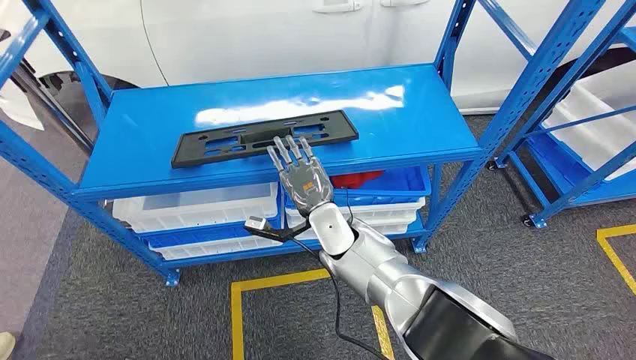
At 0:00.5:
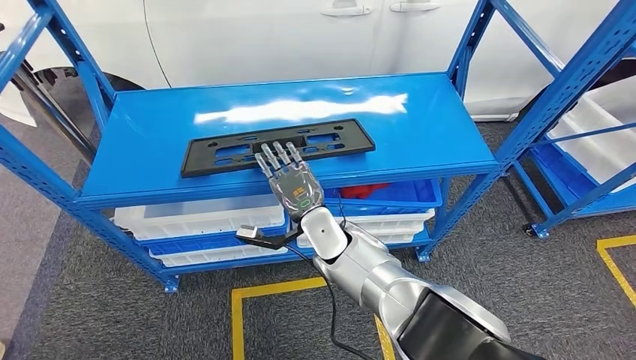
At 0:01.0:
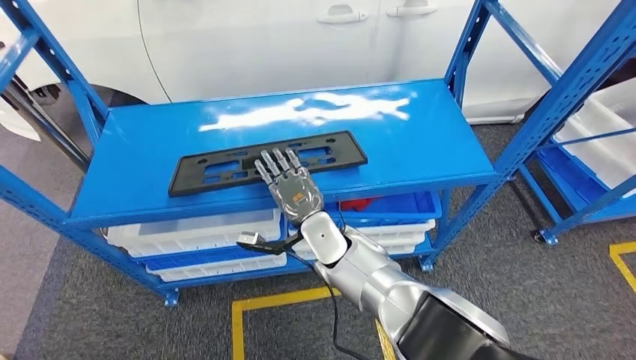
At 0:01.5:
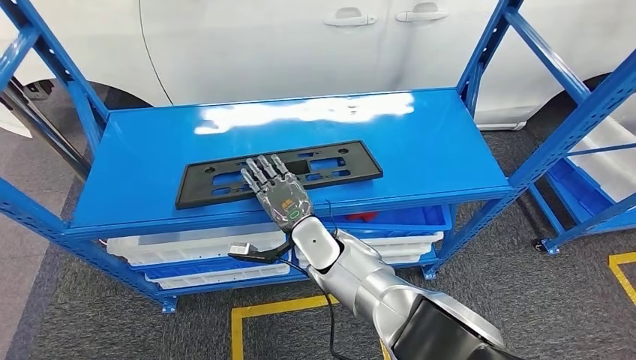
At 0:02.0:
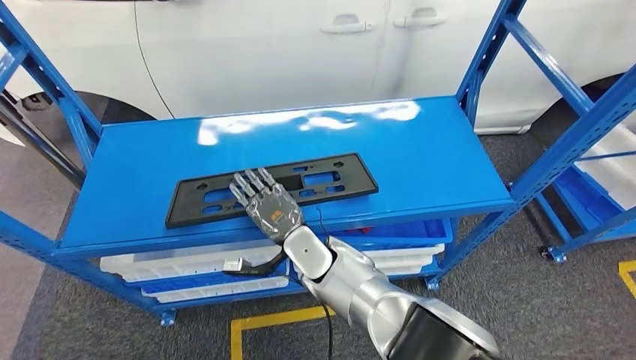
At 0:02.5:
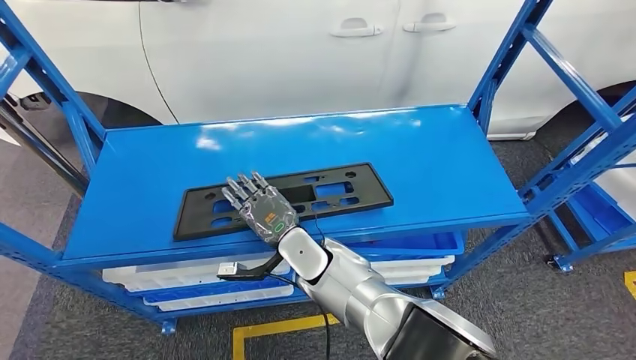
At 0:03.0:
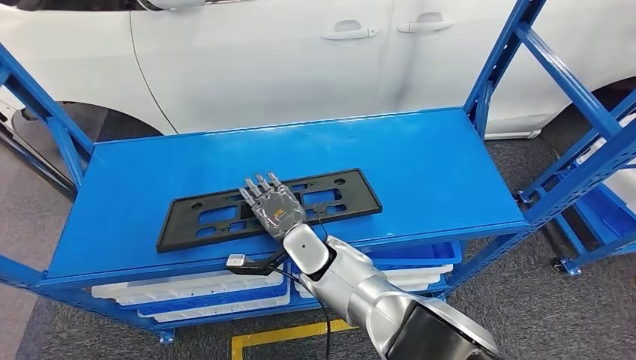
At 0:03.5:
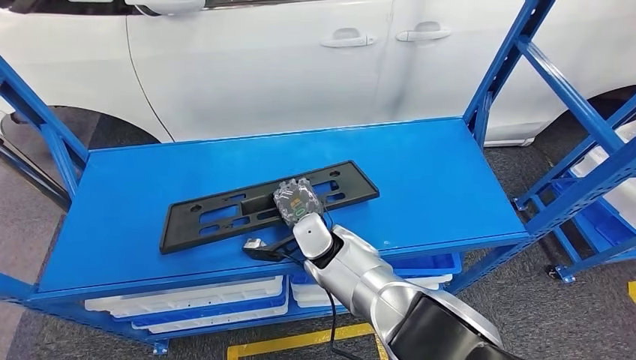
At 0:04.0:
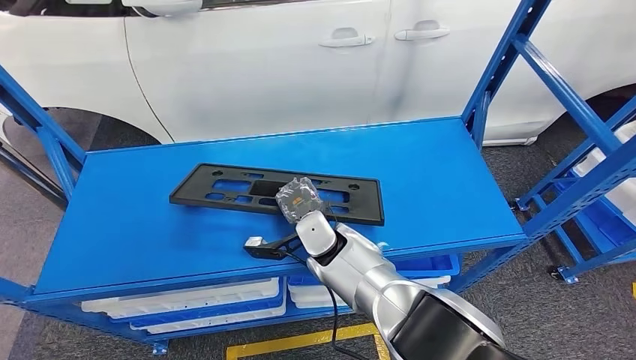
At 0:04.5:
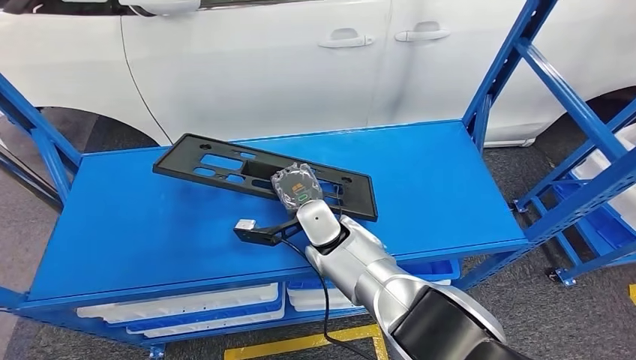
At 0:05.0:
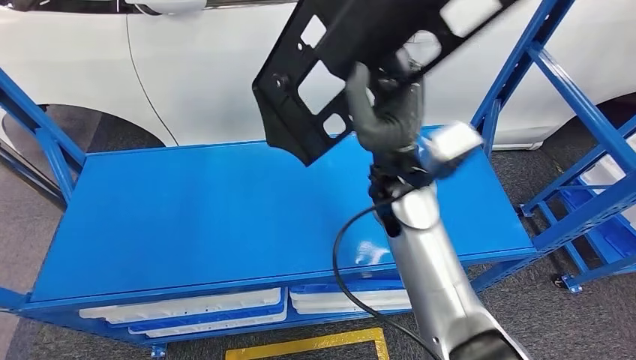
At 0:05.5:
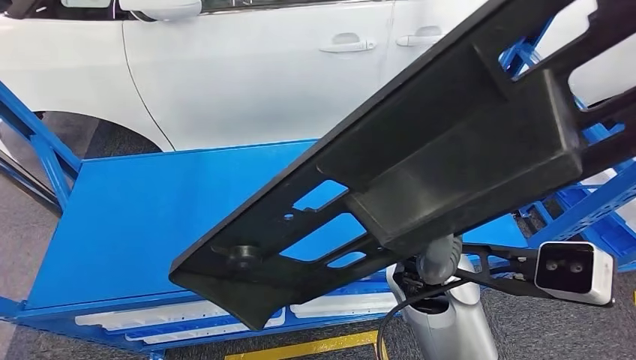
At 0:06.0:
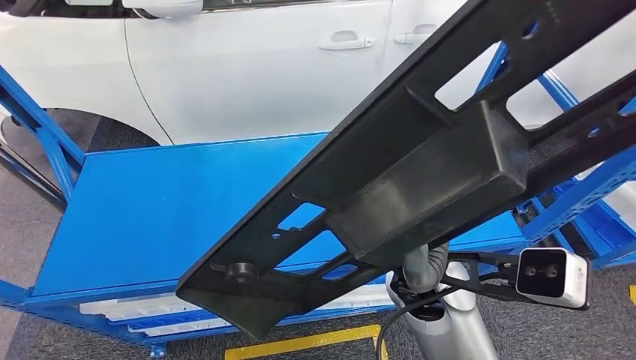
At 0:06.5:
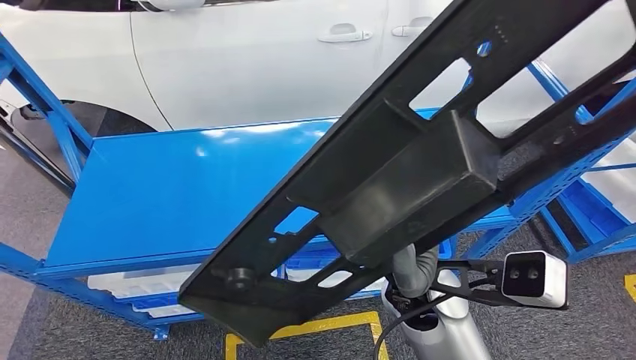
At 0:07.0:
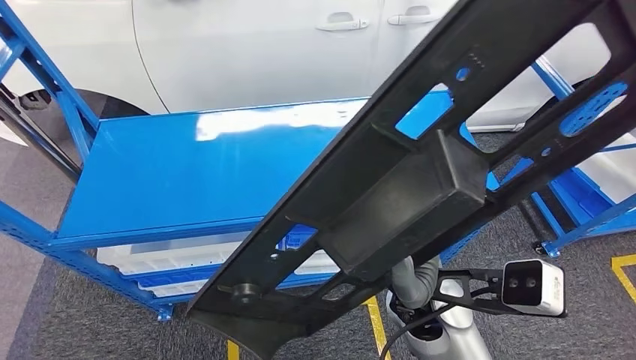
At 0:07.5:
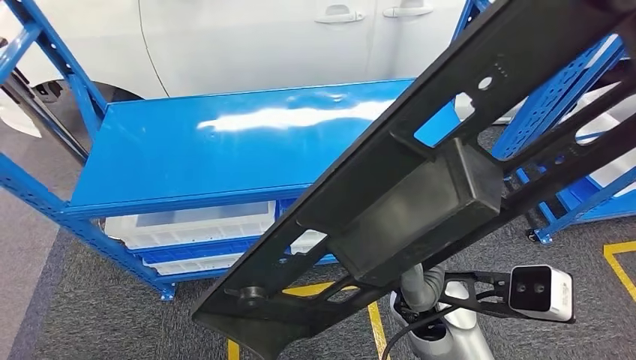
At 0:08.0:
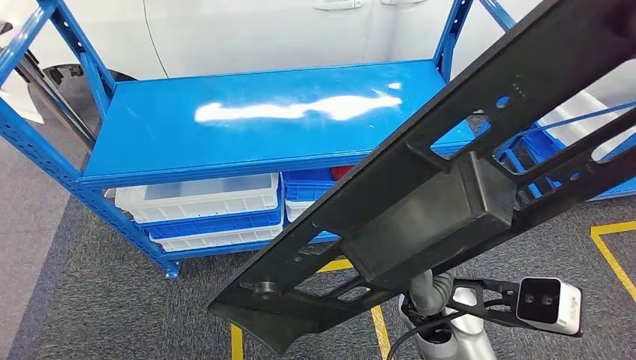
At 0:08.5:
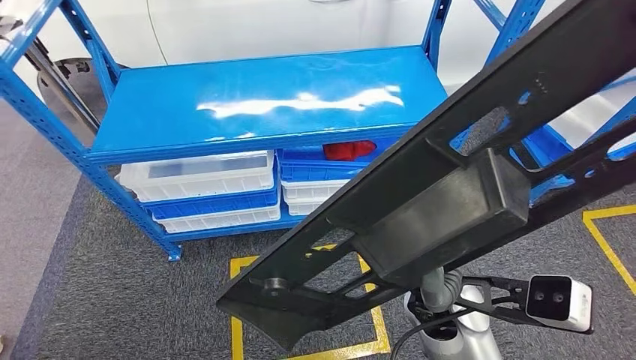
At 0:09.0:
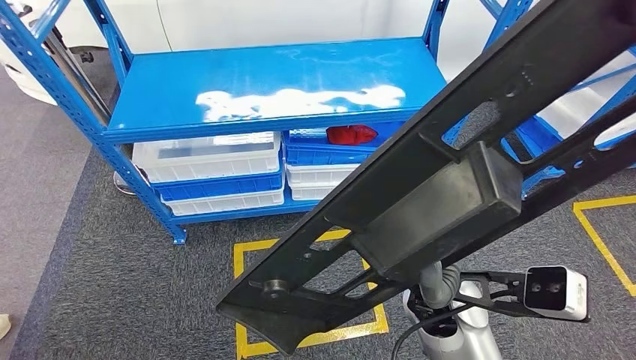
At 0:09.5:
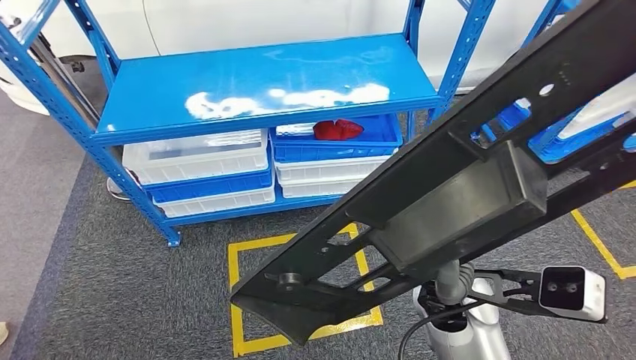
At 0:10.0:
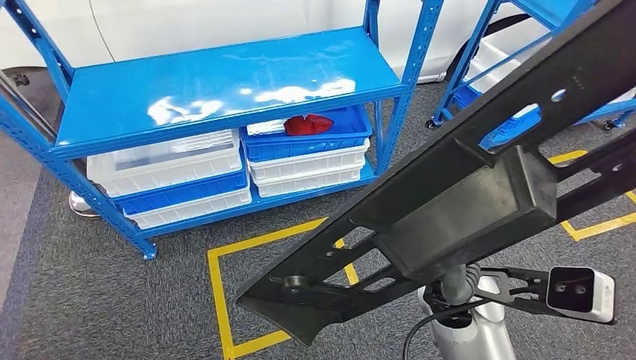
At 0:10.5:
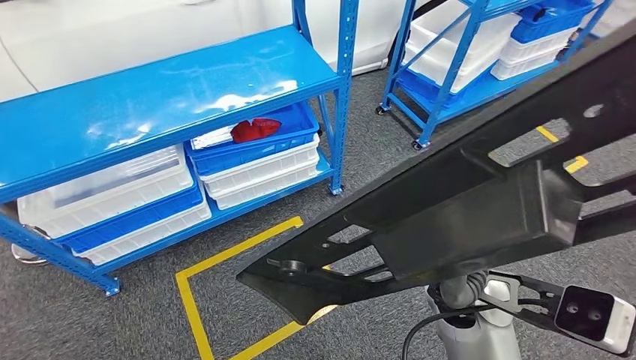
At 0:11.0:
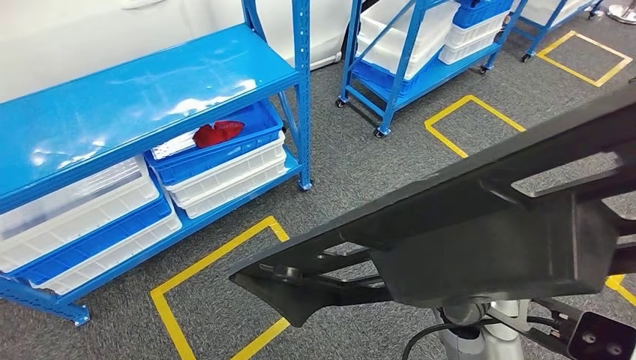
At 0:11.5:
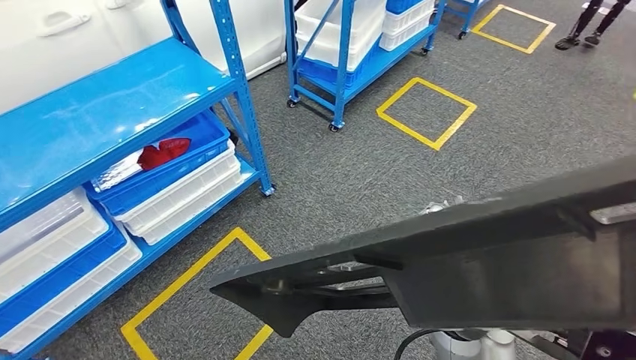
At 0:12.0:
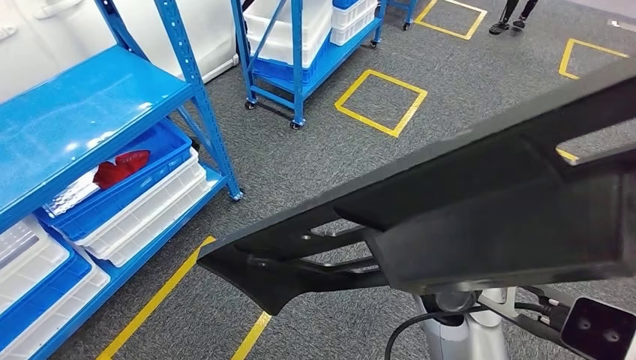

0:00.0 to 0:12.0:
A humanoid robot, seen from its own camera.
Step, 0:00.0 to 0:05.5: Pick up the large material from the shelf.

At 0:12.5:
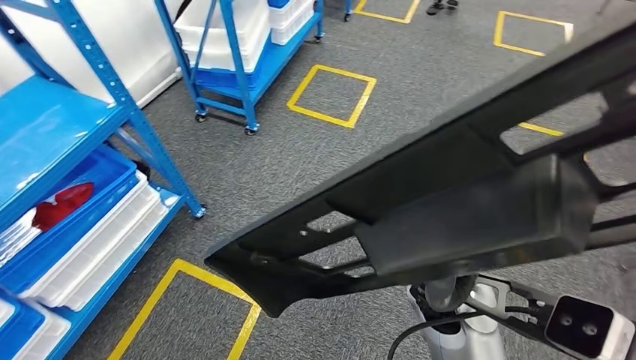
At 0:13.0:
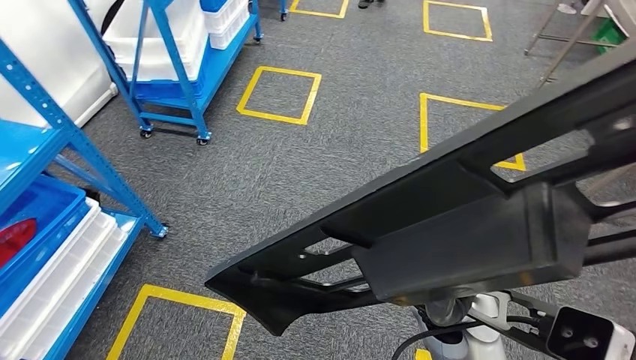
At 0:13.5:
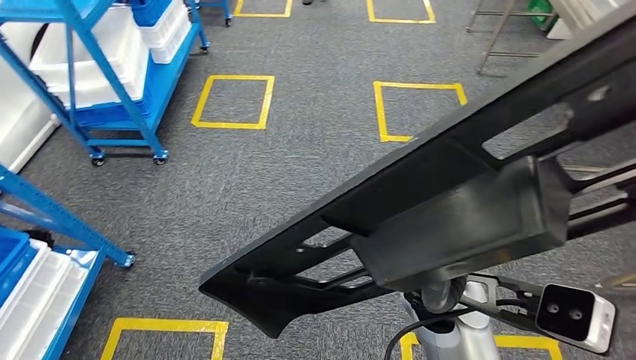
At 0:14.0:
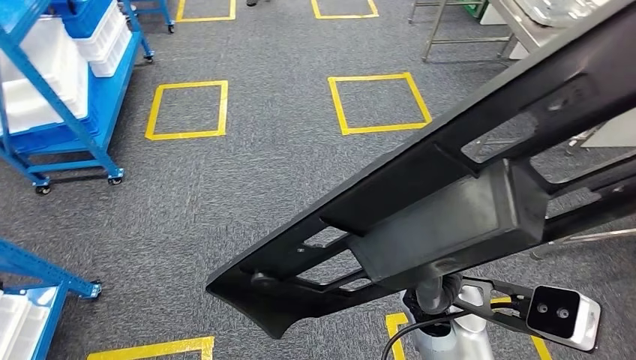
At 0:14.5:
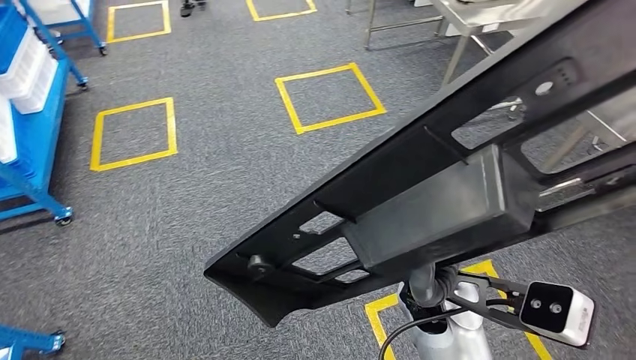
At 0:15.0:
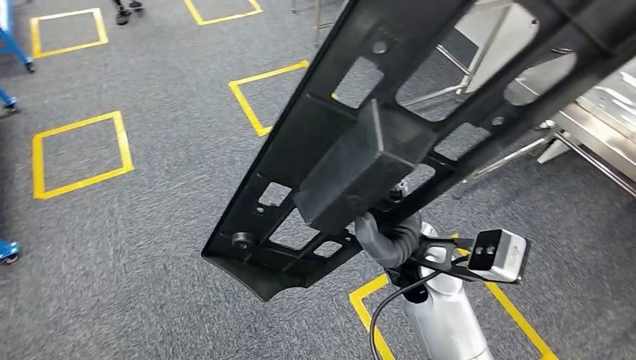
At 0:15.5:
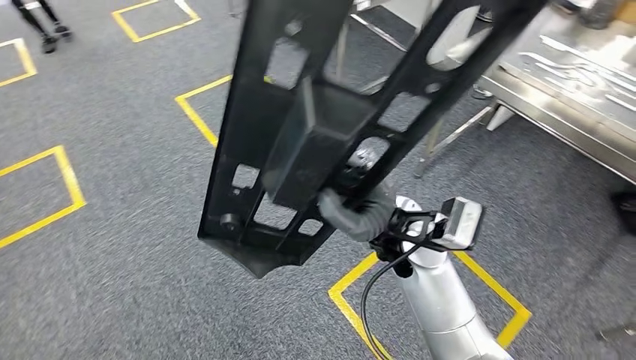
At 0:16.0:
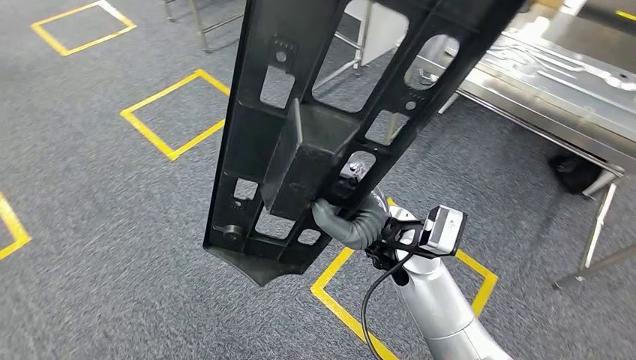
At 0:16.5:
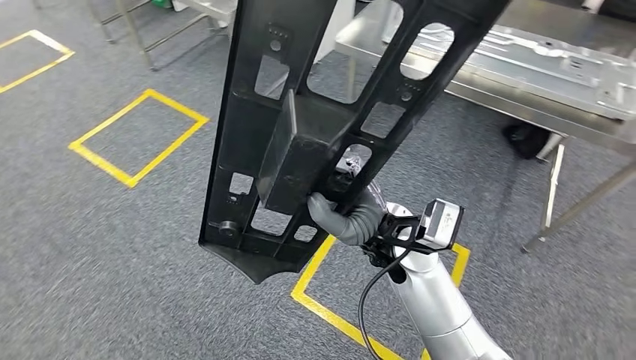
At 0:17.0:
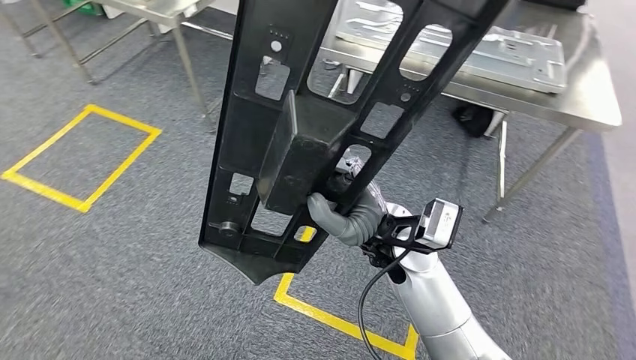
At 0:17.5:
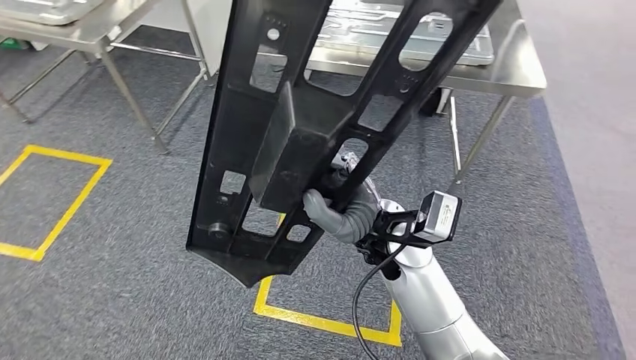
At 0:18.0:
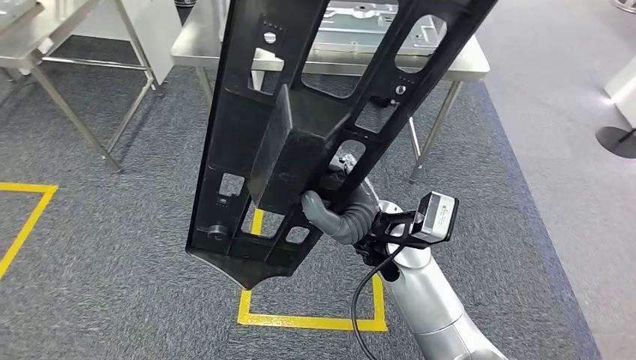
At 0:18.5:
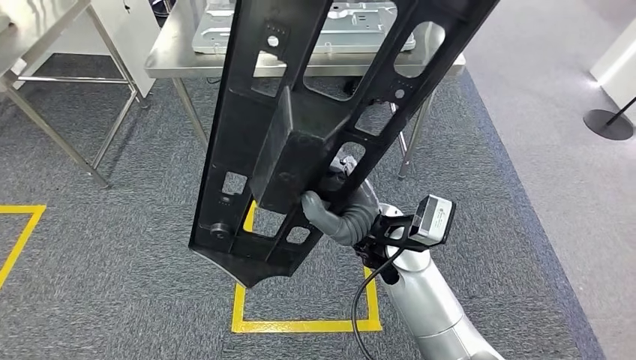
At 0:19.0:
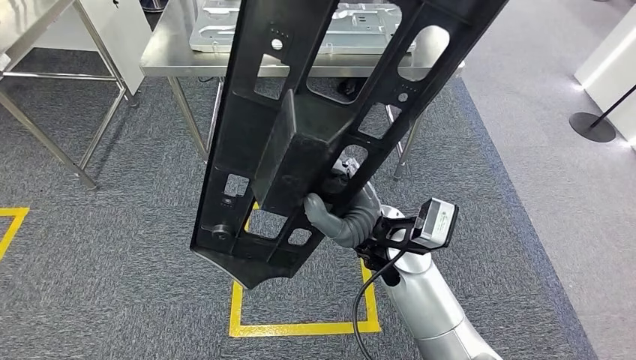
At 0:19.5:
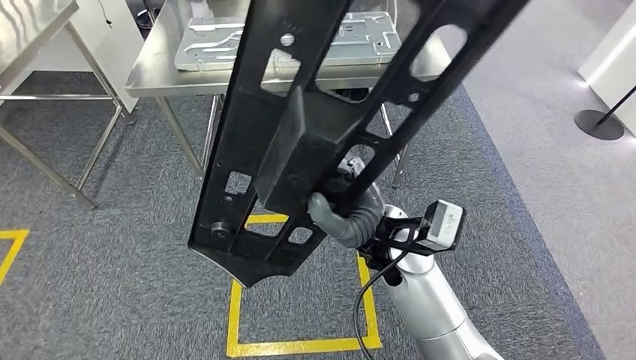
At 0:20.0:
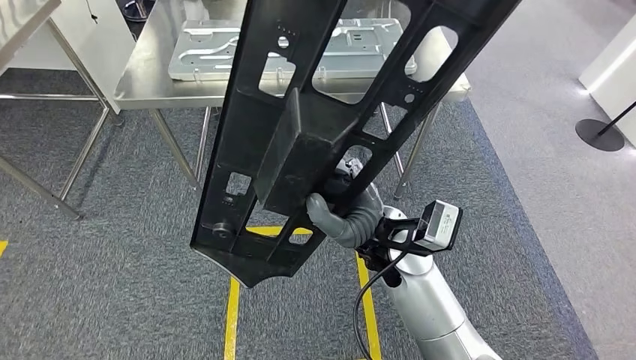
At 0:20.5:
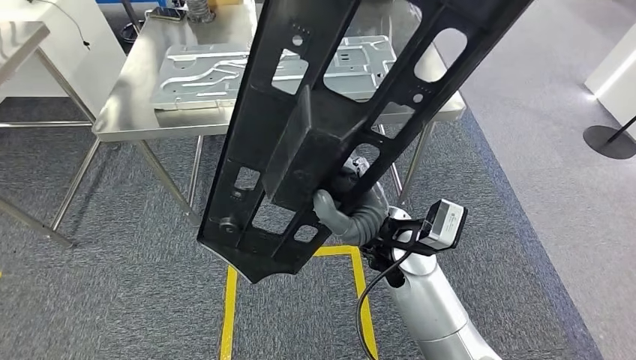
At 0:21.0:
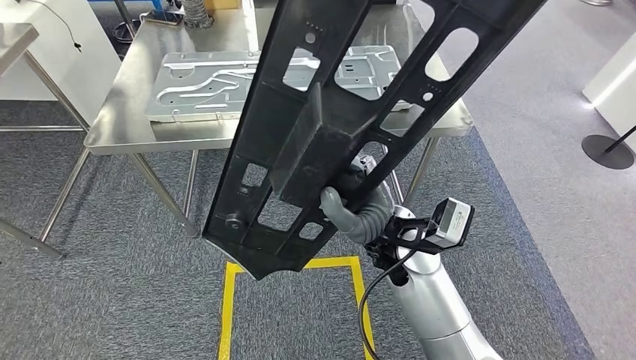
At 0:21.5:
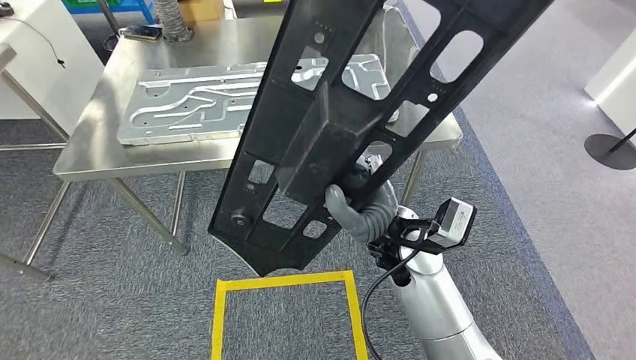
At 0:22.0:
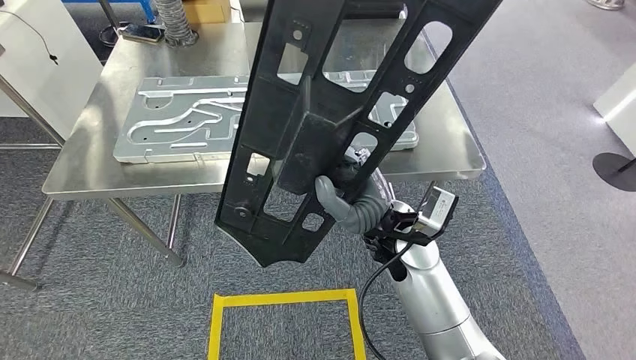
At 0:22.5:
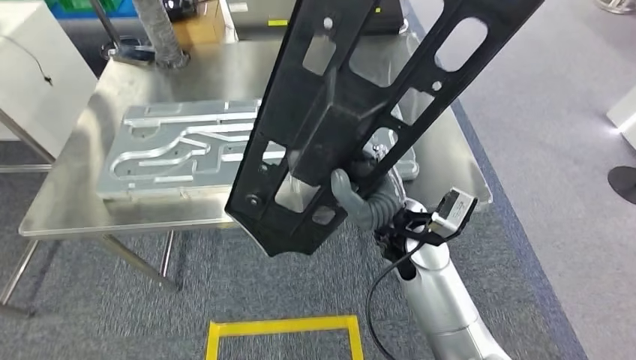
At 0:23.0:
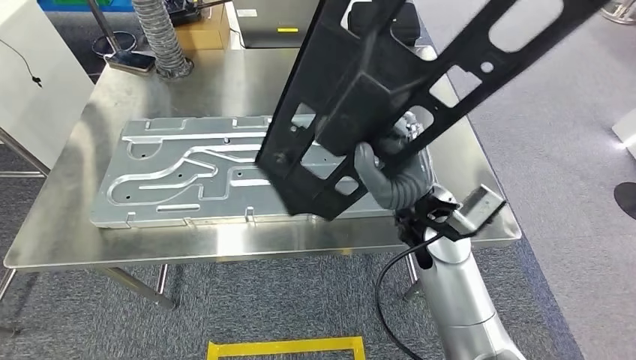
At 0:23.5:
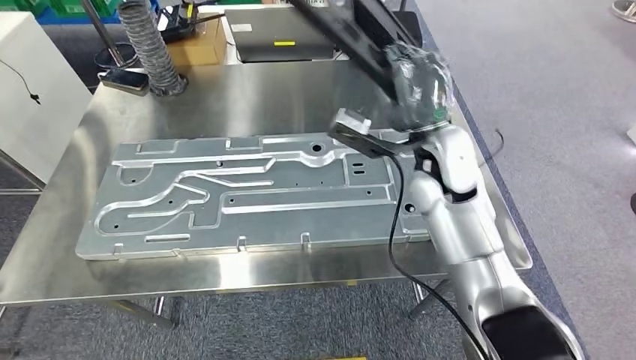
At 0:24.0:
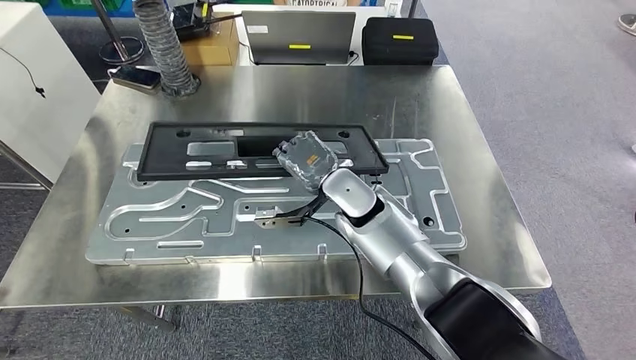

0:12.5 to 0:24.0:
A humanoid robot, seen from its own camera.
Step, 0:12.5 to 0:23.5: Move the large material to the workbench.
